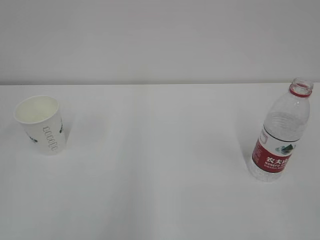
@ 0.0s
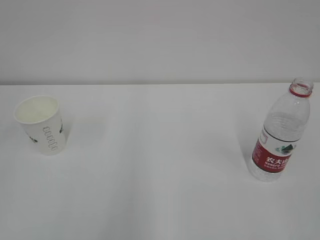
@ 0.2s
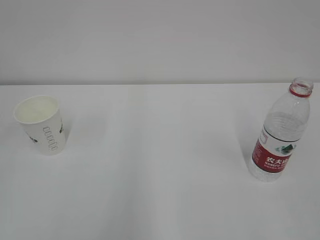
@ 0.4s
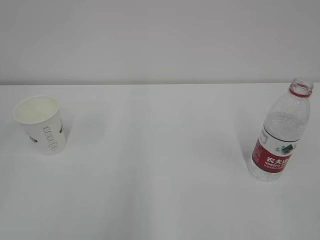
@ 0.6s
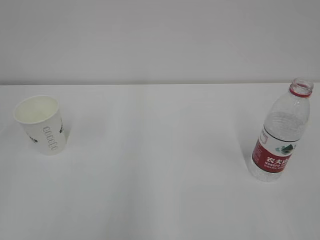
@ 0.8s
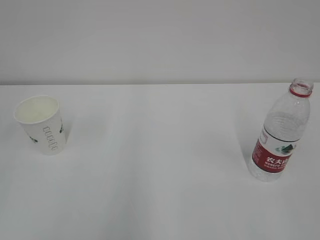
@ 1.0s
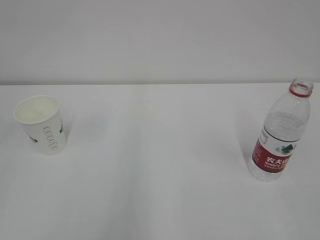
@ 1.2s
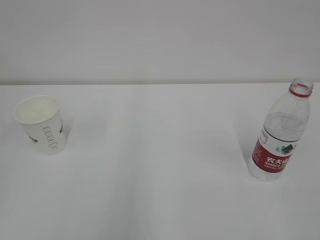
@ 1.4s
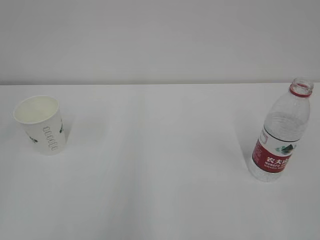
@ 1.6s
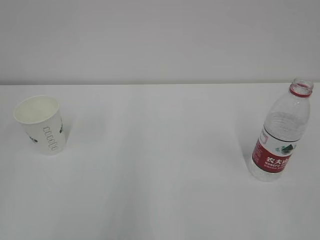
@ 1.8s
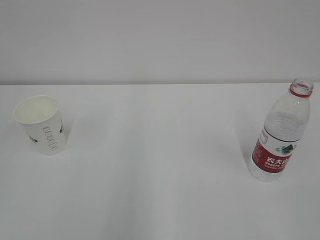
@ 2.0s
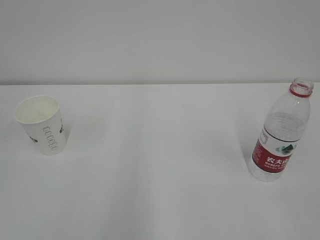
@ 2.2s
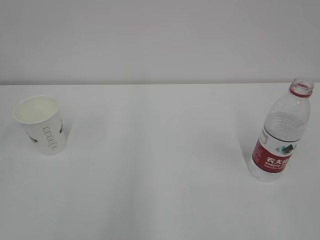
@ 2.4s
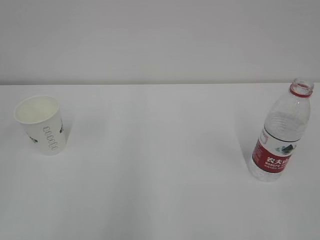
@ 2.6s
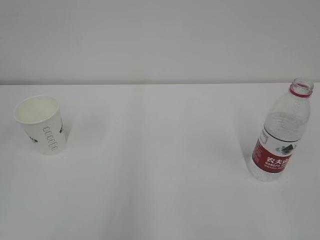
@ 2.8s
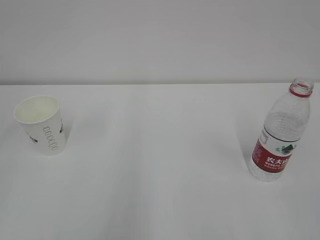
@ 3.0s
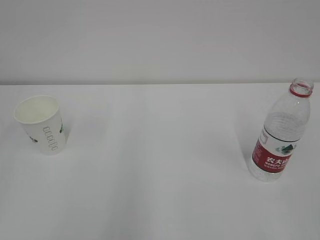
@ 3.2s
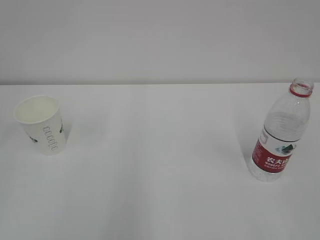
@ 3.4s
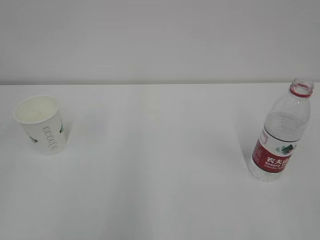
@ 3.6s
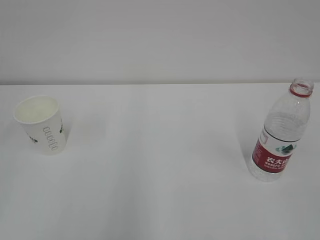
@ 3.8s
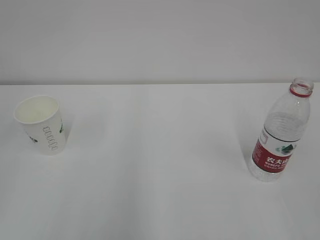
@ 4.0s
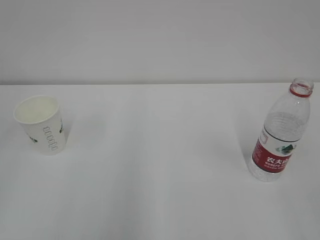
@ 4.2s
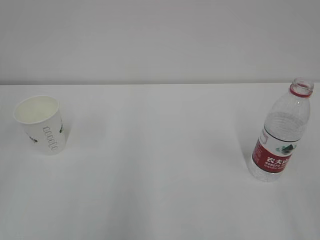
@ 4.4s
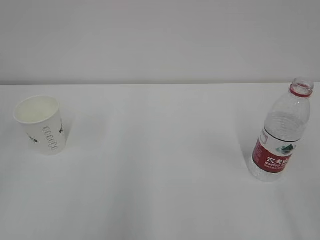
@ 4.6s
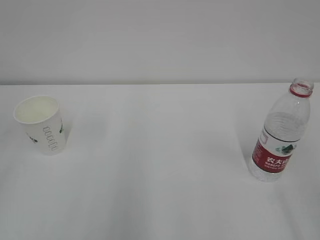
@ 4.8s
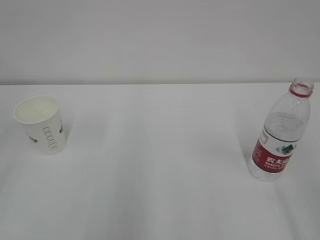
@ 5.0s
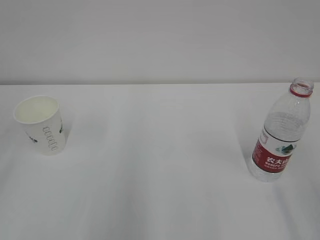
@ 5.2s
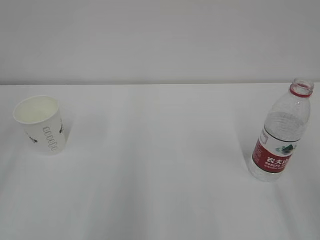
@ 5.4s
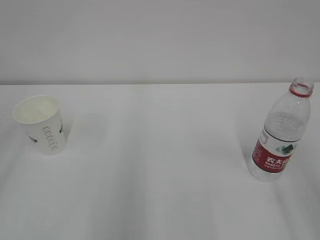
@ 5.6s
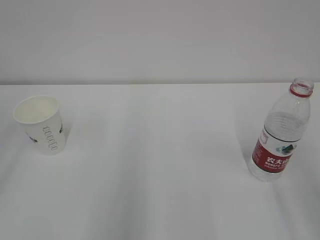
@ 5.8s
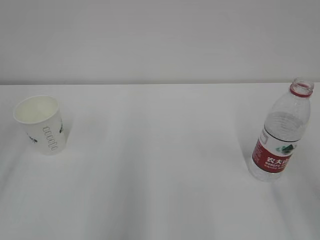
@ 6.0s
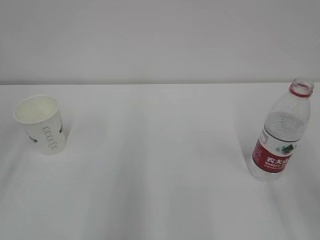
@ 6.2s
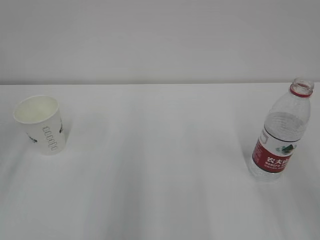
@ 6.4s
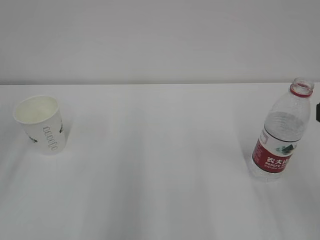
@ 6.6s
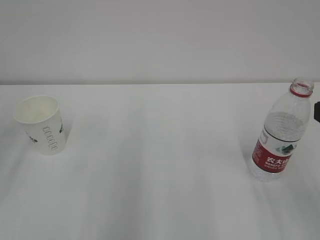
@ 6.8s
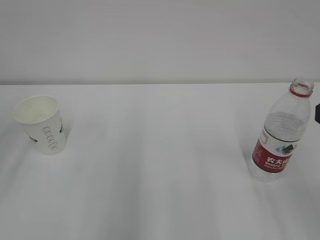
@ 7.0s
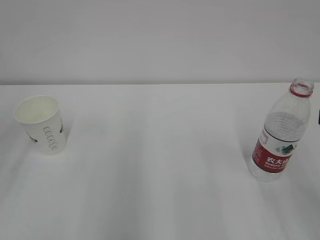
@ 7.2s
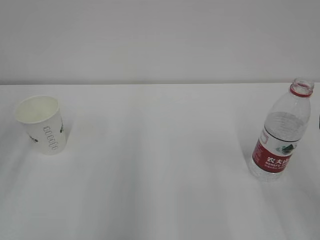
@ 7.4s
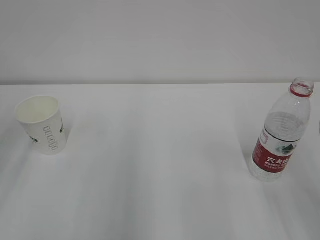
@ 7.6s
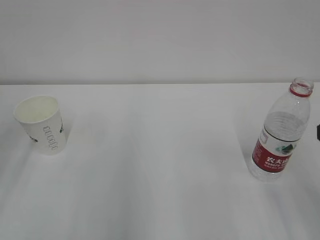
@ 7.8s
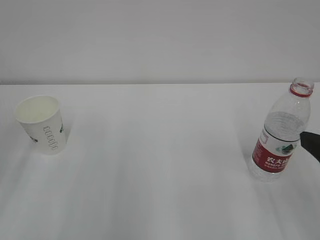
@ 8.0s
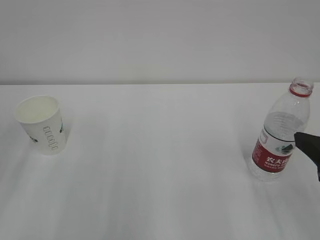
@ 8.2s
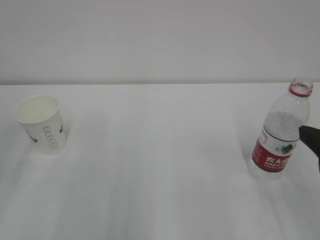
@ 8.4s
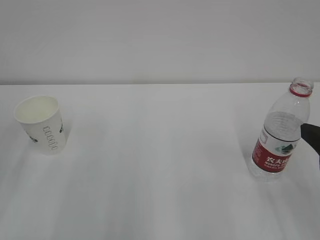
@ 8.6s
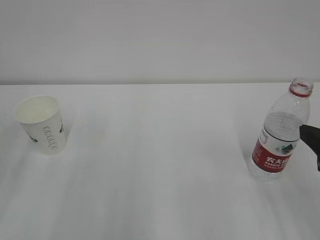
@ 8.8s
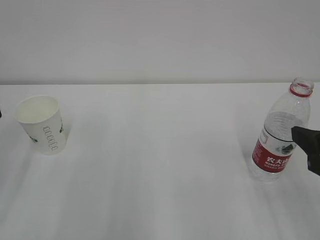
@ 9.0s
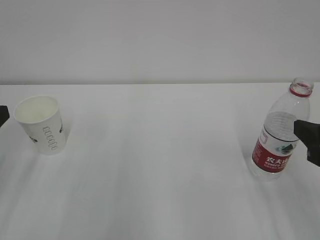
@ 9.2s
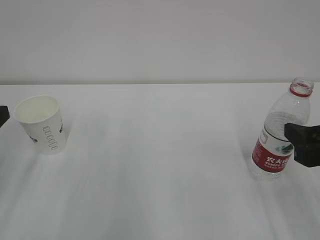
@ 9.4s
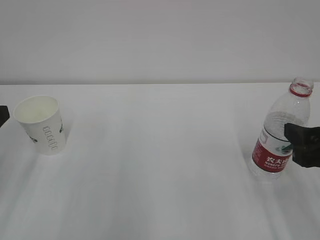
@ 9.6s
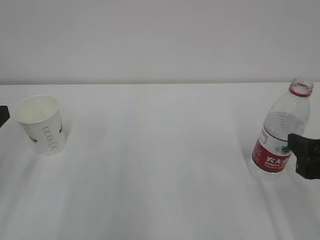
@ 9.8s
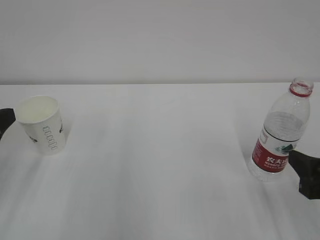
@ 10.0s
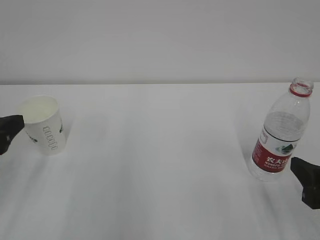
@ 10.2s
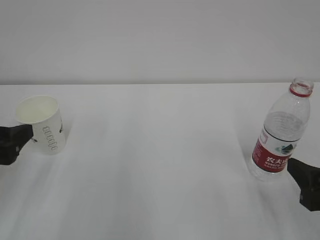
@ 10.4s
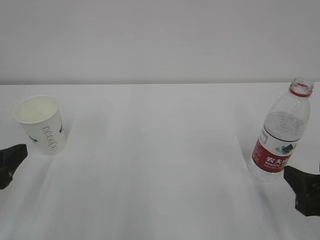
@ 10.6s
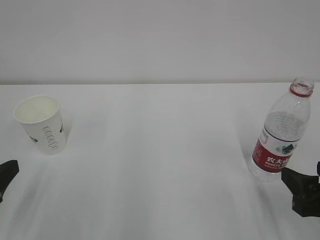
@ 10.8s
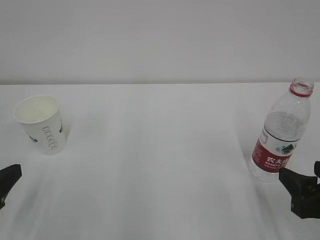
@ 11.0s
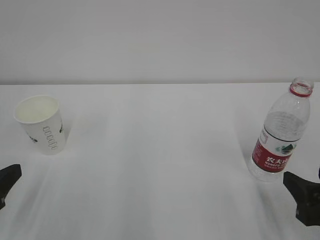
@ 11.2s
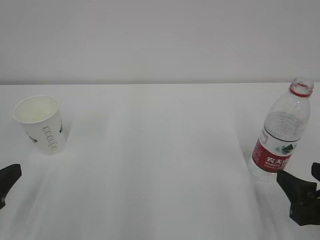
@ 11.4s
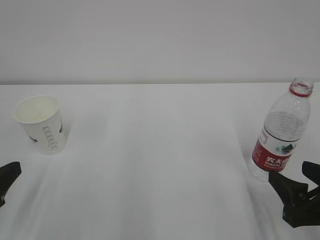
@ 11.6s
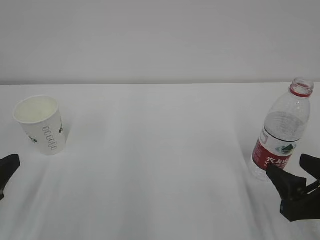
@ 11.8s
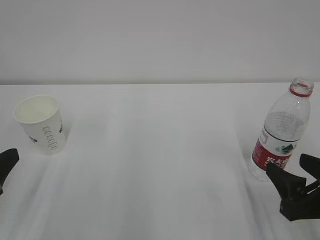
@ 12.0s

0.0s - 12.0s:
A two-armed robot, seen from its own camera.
1.6s - 3.0s: The two grippers keep their place.
9.0s - 10.4s: The right gripper heads downward, covering approximately 5 cm.
10.4s - 12.0s: The left gripper shifts by roughly 5 cm.

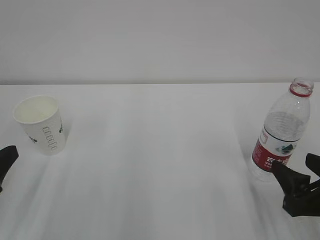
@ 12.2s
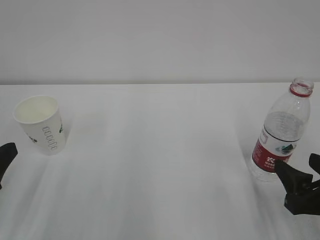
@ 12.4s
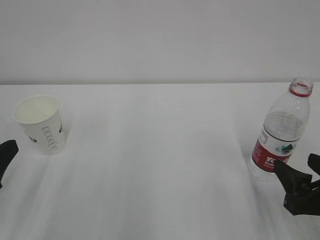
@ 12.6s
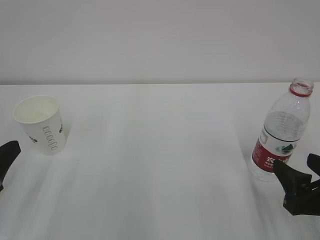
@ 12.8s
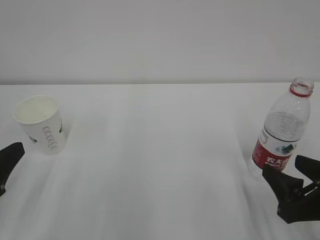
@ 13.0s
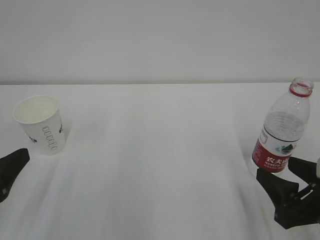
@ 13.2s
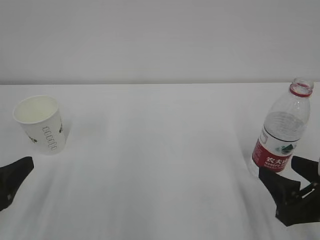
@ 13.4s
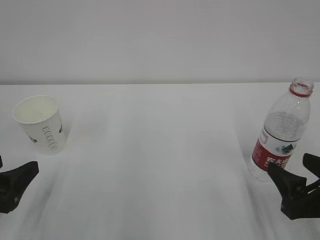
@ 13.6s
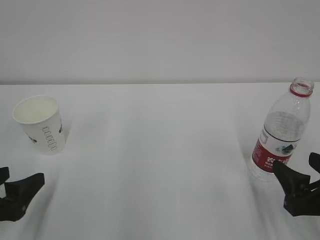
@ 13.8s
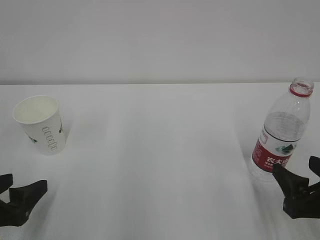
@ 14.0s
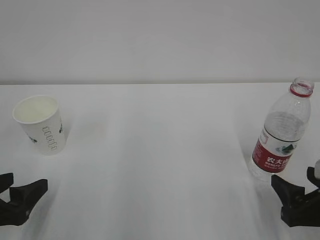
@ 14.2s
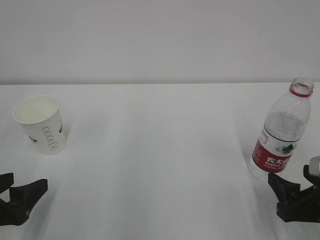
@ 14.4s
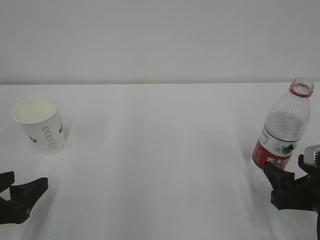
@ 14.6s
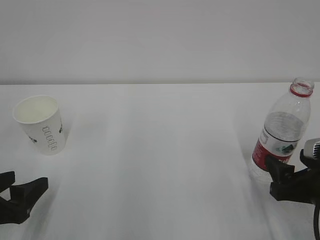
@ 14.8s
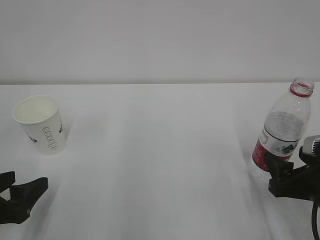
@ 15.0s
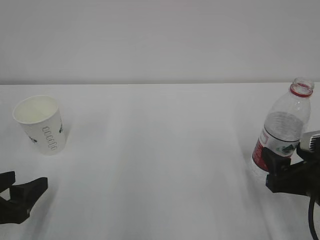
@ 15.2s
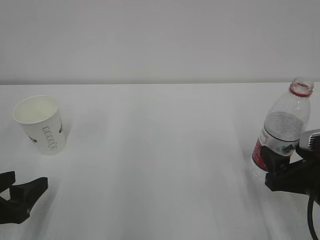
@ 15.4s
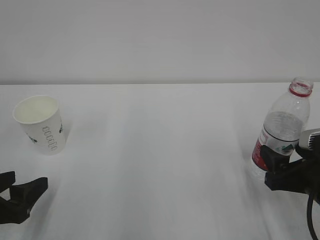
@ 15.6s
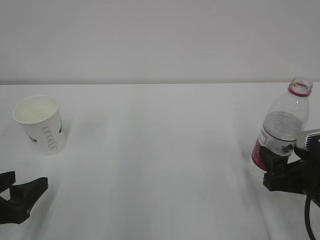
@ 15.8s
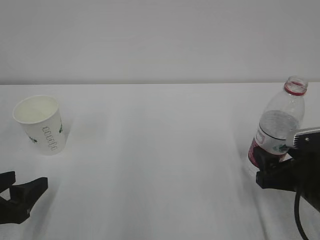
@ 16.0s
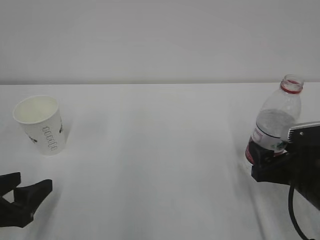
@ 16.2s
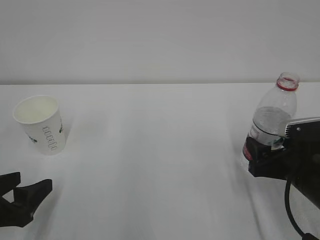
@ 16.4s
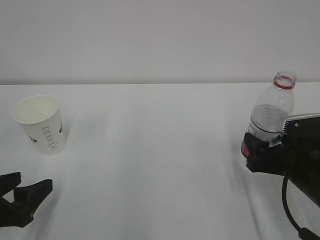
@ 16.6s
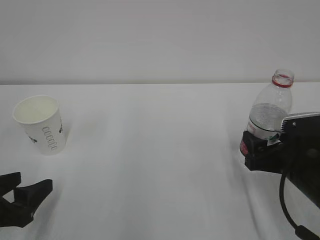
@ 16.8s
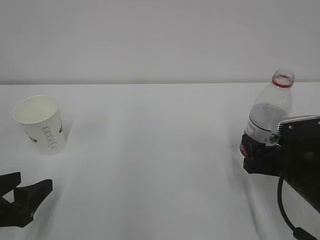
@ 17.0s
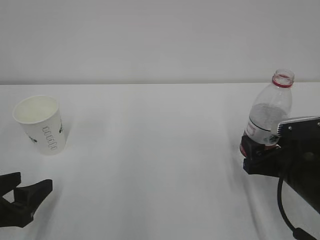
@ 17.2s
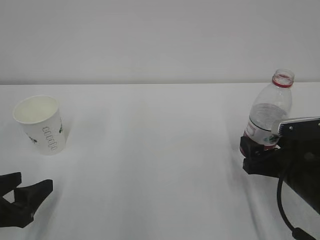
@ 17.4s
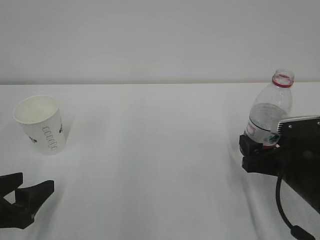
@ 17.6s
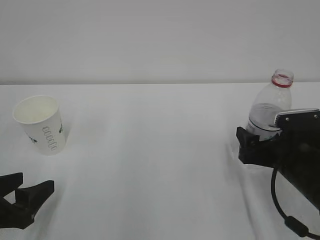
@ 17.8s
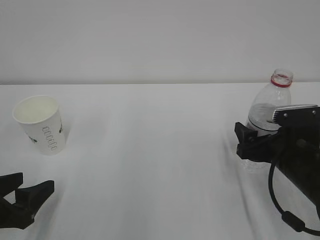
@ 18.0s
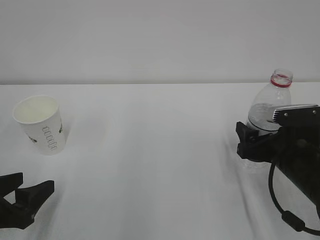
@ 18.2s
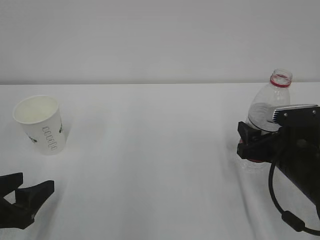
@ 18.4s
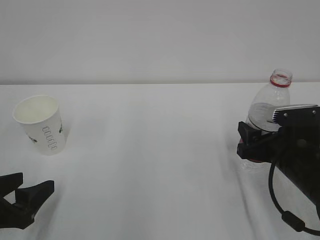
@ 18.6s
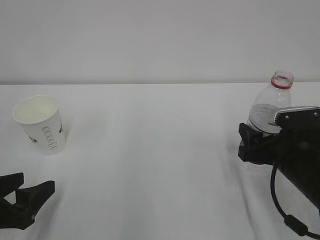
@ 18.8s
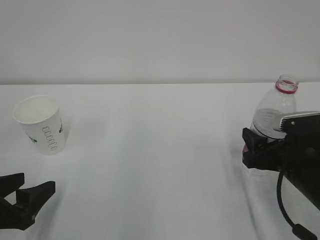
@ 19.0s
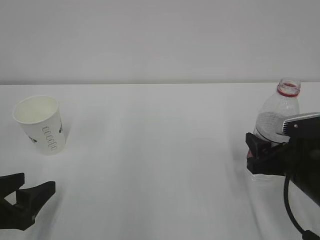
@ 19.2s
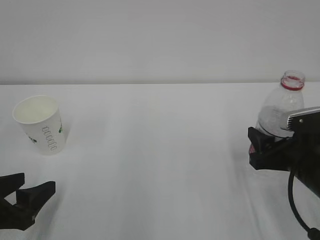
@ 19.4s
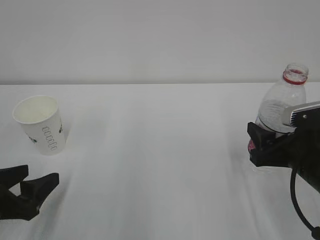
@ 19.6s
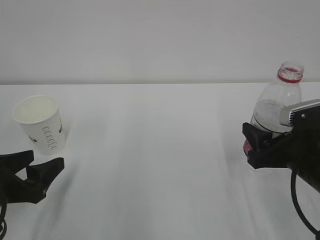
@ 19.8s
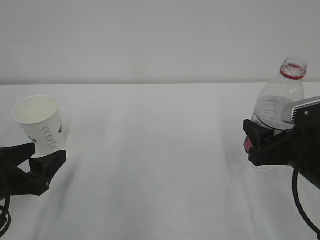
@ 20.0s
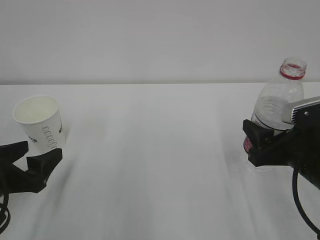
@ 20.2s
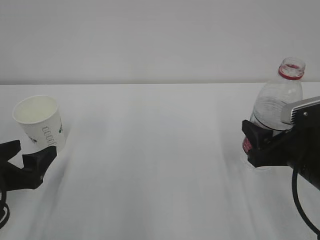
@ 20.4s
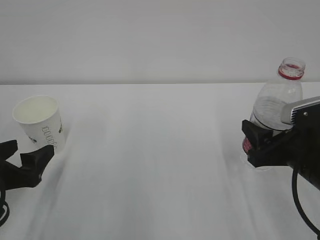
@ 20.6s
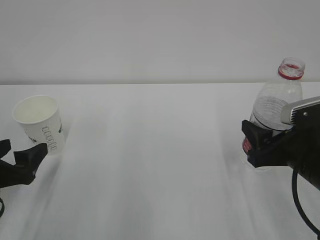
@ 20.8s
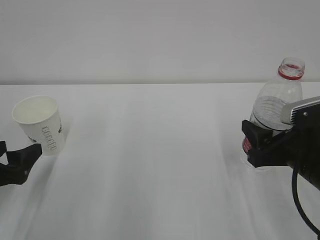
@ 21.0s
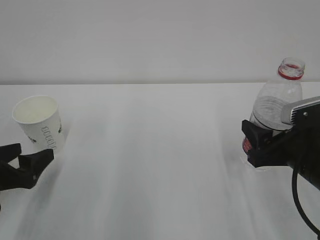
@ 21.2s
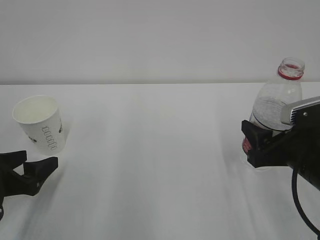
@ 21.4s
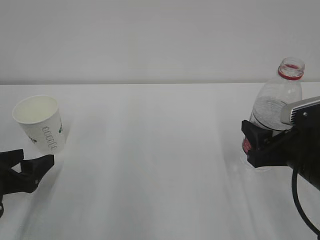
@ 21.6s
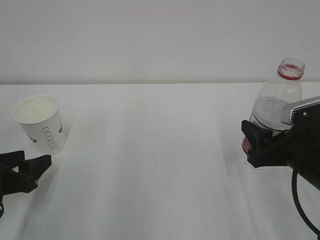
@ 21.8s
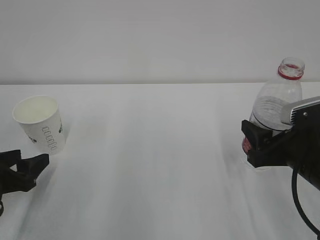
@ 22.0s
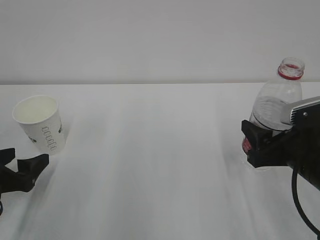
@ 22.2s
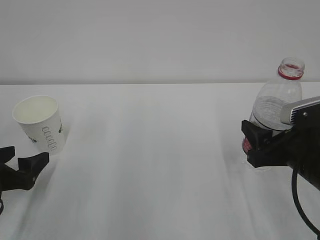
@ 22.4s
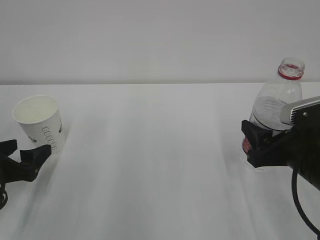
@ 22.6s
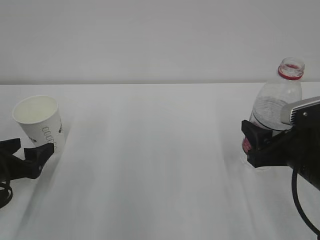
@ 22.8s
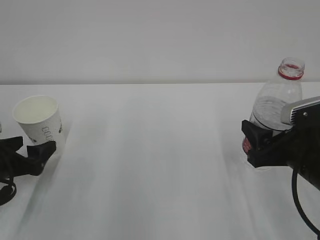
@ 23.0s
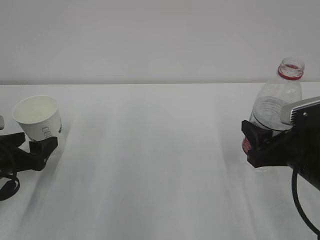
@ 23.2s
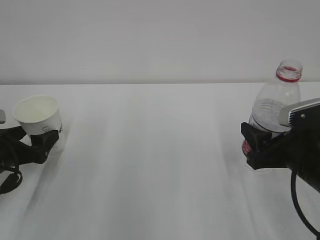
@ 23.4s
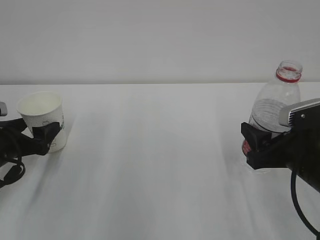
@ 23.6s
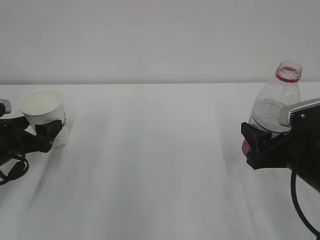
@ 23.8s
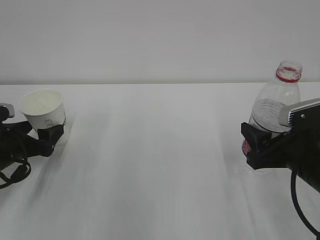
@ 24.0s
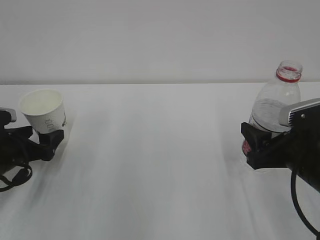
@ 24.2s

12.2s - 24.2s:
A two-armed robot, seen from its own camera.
12.2s - 13.8s: The left gripper opens.
13.8s - 15.2s: The grippers make only small movements.
15.2s - 16.6s: The grippers move only a little.
16.6s - 18.2s: There are only small adjustments of the grippers.
18.2s - 19.8s: The right gripper moves about 5 cm, and closes its fingers.
19.8s - 21.2s: There are only small adjustments of the grippers.
21.2s - 22.6s: The left gripper closes and opens again.
22.6s - 24.2s: The left gripper moves forward, about 5 cm.
